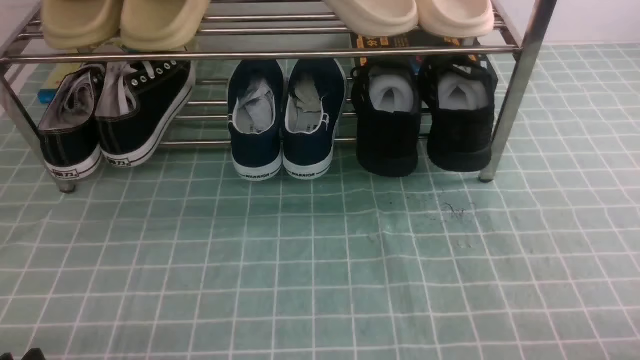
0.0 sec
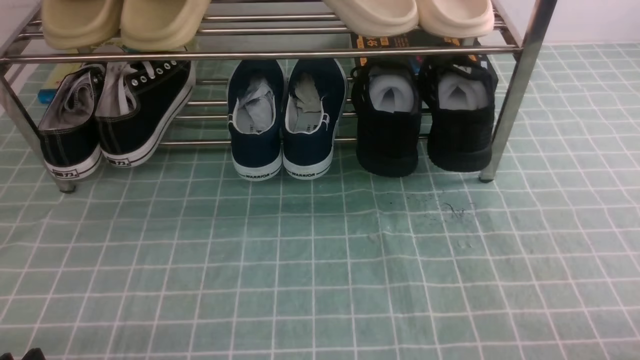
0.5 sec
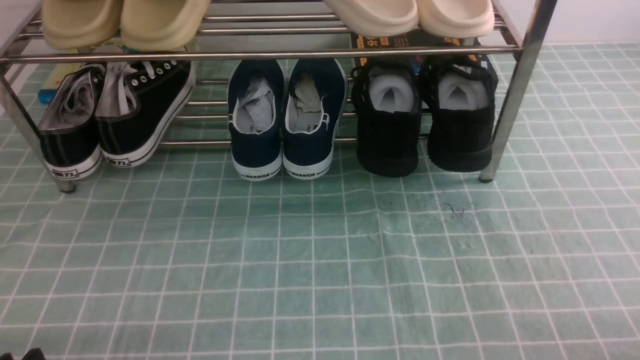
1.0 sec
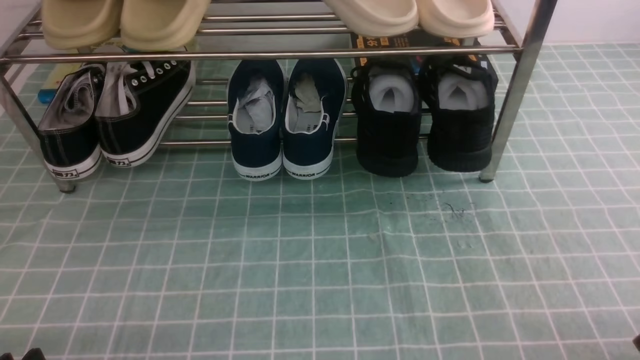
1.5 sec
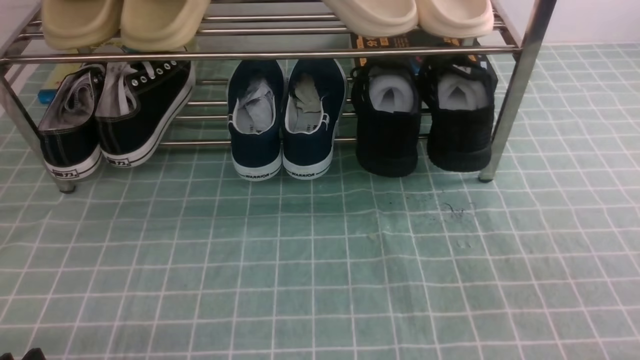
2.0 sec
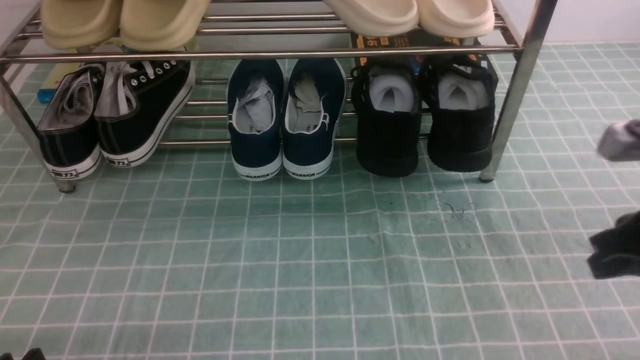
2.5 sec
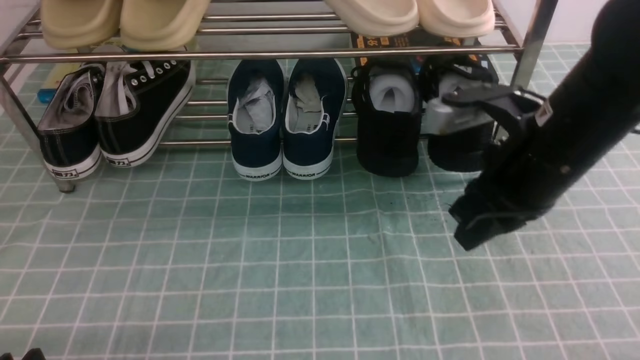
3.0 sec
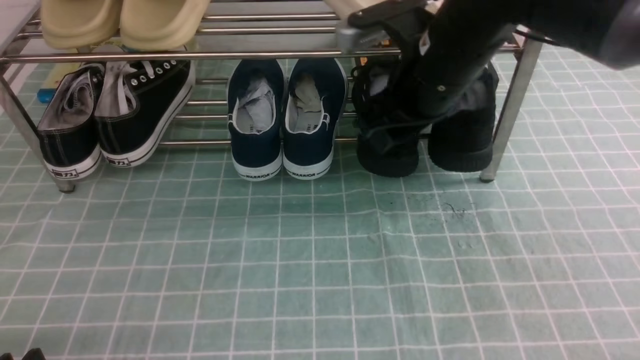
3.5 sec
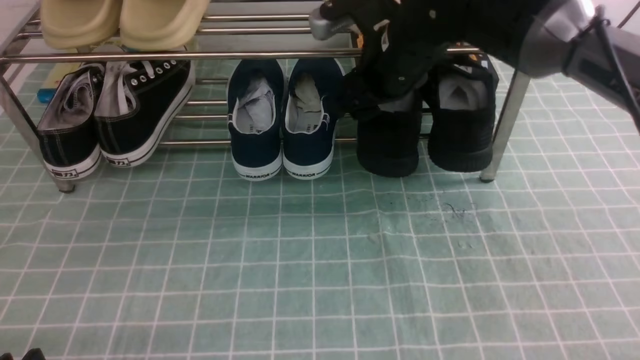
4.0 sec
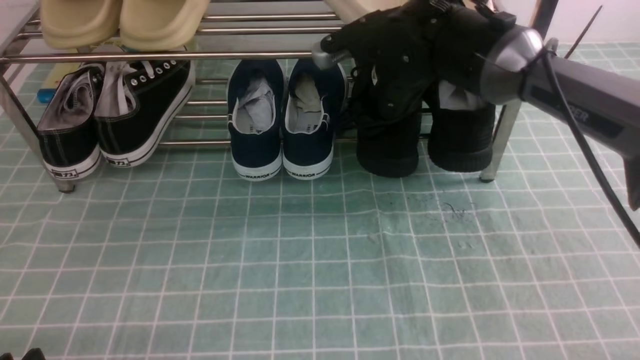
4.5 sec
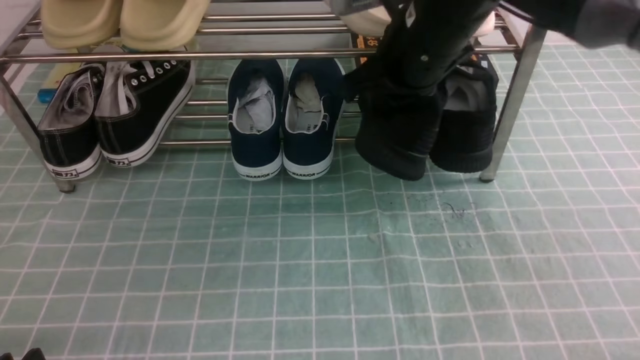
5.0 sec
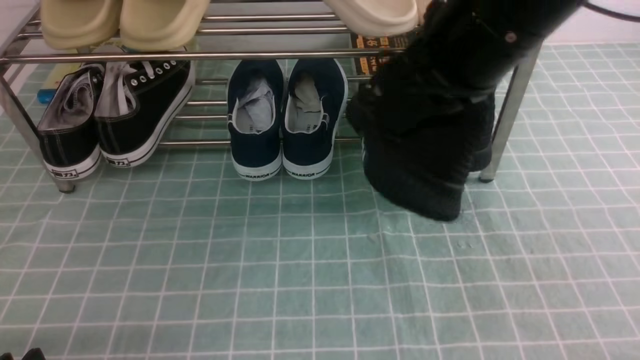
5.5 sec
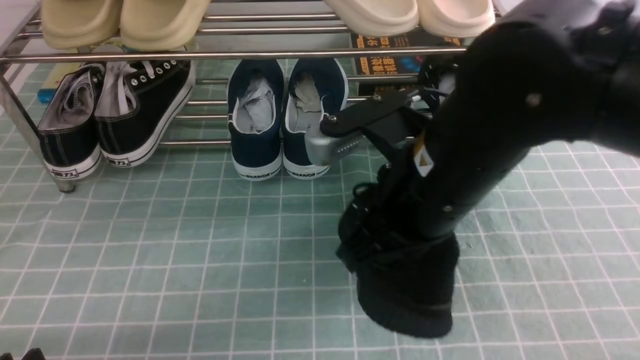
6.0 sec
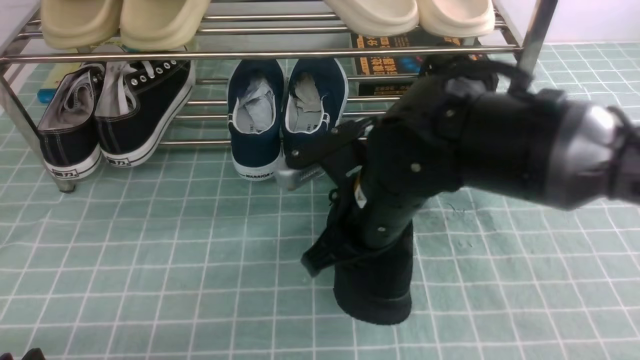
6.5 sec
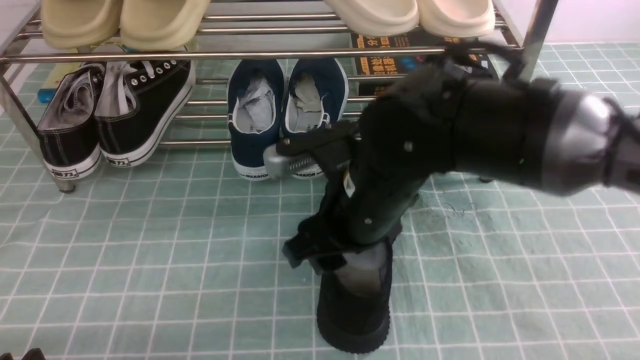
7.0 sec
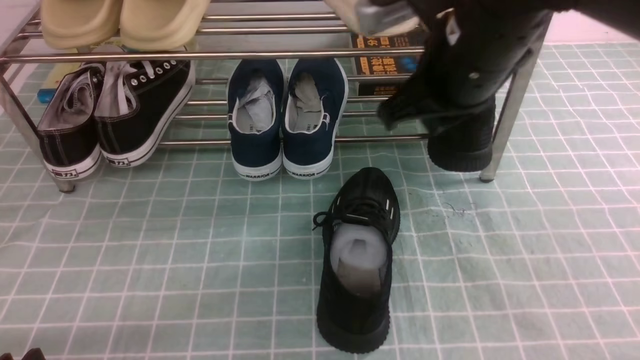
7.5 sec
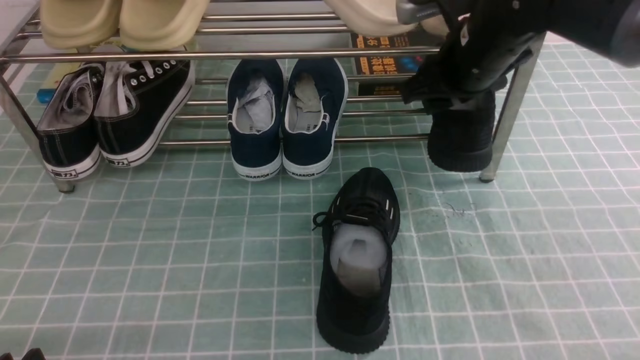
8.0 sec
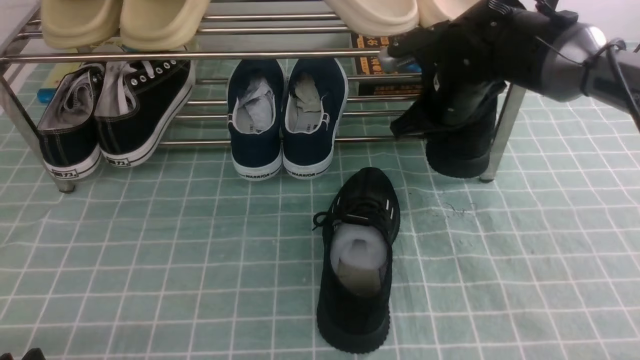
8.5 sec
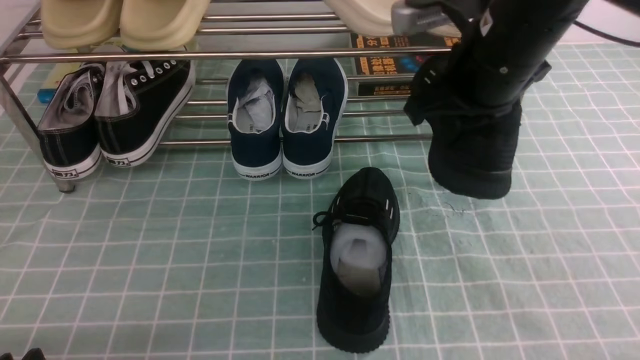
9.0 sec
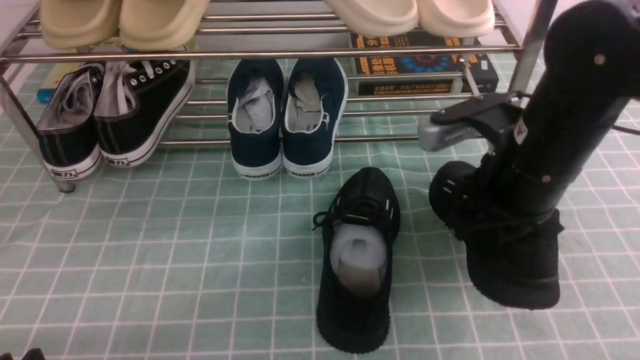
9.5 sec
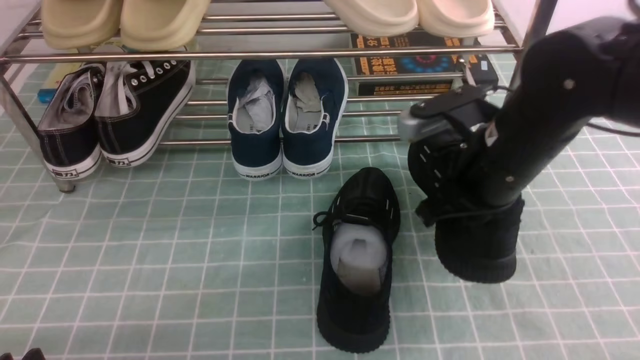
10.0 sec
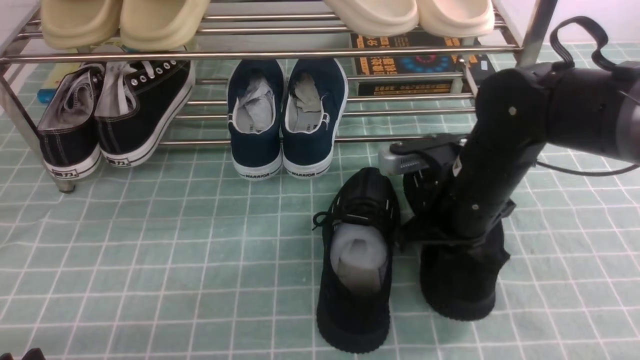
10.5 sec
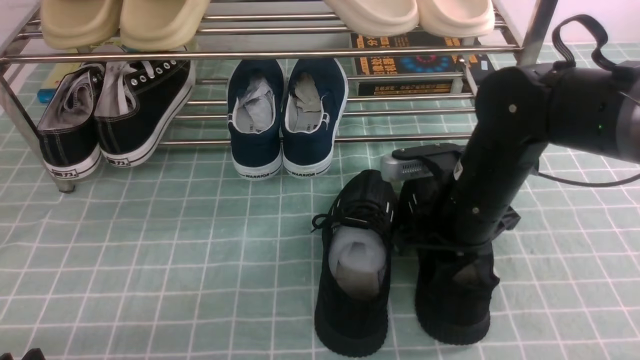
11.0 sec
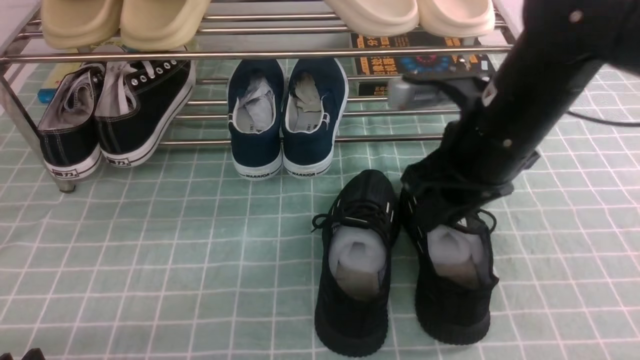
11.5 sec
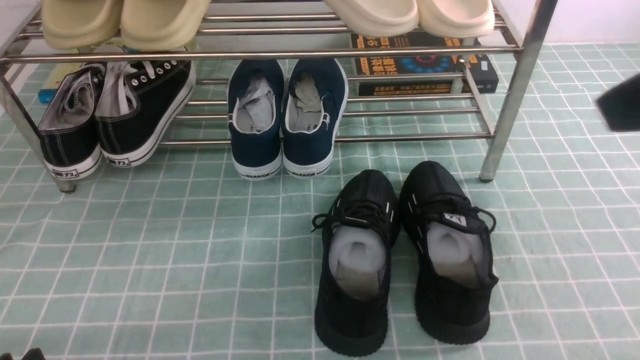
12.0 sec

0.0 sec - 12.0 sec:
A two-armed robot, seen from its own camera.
Step, 0.0 sec - 4.5 sec: use the right arm to clamp a shoe on the right side of the shoe rack.
Step, 5.0 sec - 7.0 sec: use the right arm to take out the clamped shoe from the shoe rack and put it down.
Step, 7.5 sec - 8.0 sec: use the right arm to clamp a shoe on the right side of the shoe rack.
Step, 8.5 sec - 10.5 sec: use the right arm to take out the clamped shoe from the shoe rack and put it down.
2.0 sec - 4.0 sec: The right gripper shifts some 40 cm forward and to the left, and opens.
4.0 sec - 6.0 sec: The right gripper heads backward, covering some 20 cm, and closes its fingers.
6.0 sec - 8.0 sec: The right gripper moves forward and to the right, about 20 cm, and opens its fingers.
8.0 sec - 10.0 sec: The right gripper moves backward, about 10 cm, and closes.
10.0 sec - 12.0 sec: The right gripper goes about 25 cm upward, backward and to the right, and opens, then closes once more.

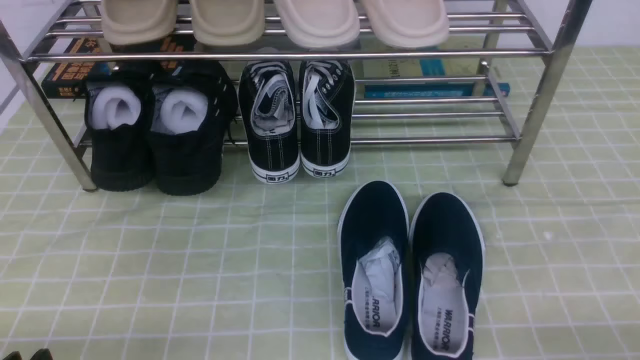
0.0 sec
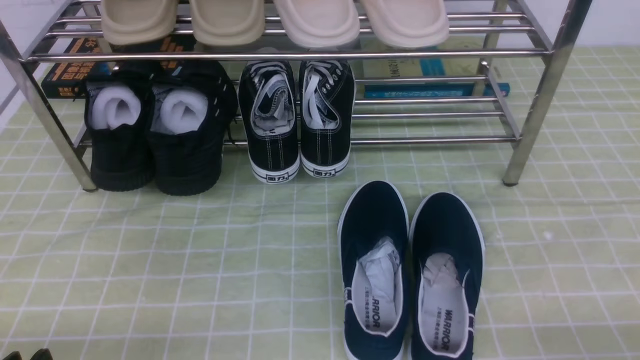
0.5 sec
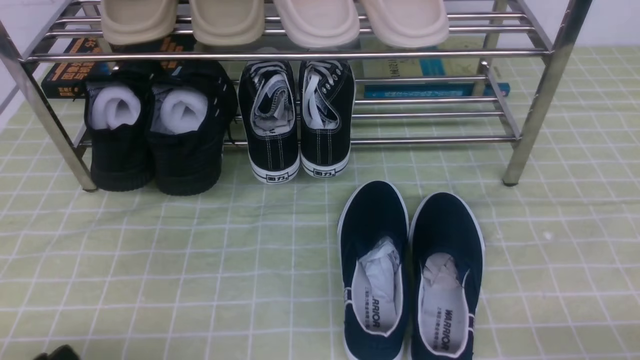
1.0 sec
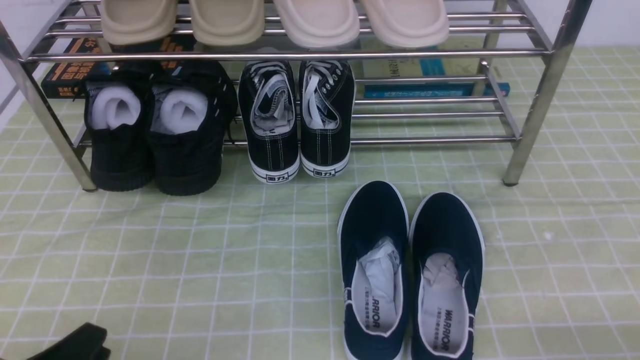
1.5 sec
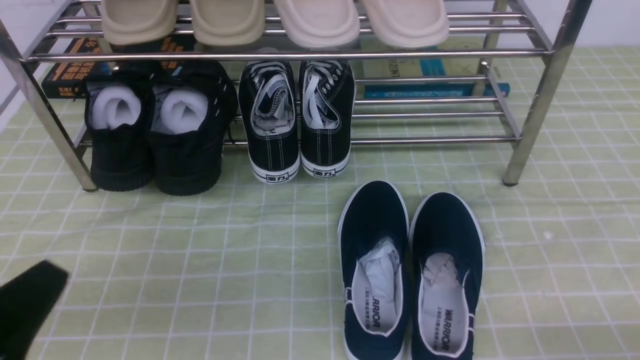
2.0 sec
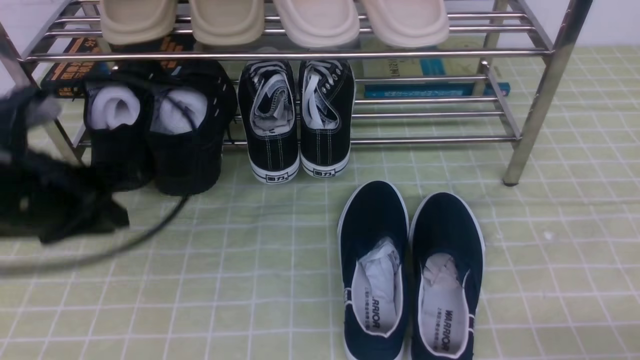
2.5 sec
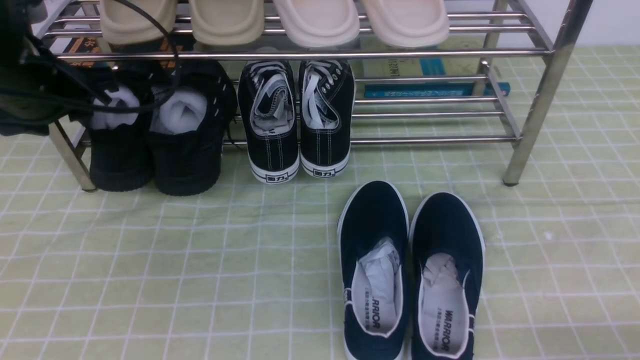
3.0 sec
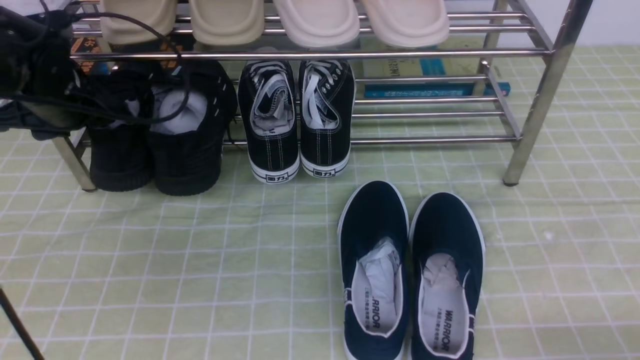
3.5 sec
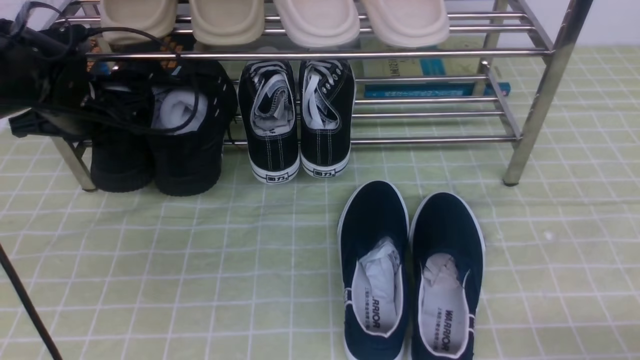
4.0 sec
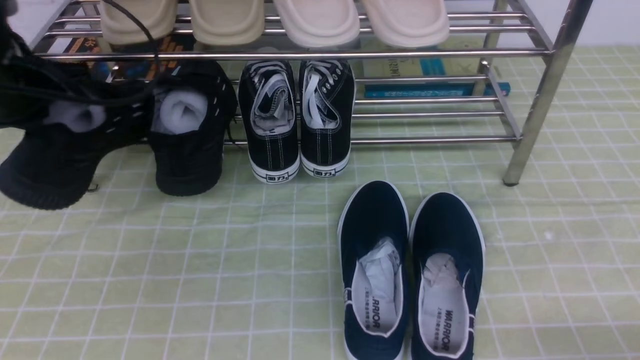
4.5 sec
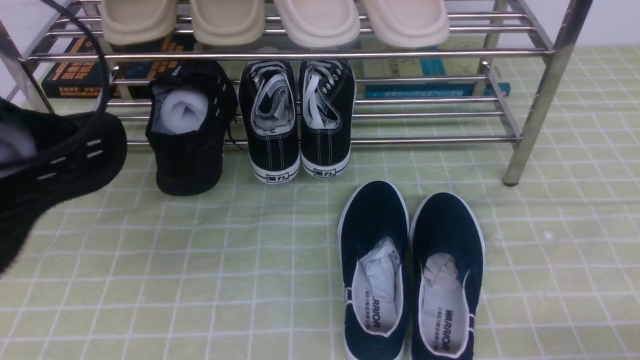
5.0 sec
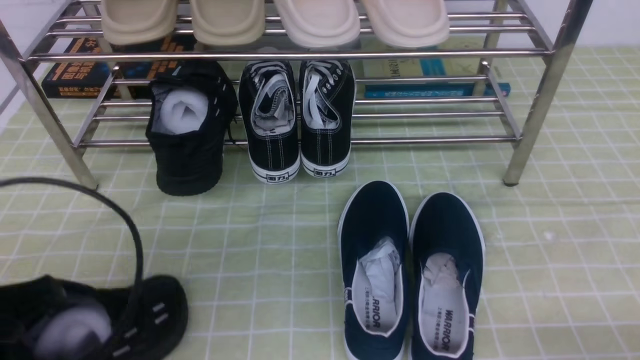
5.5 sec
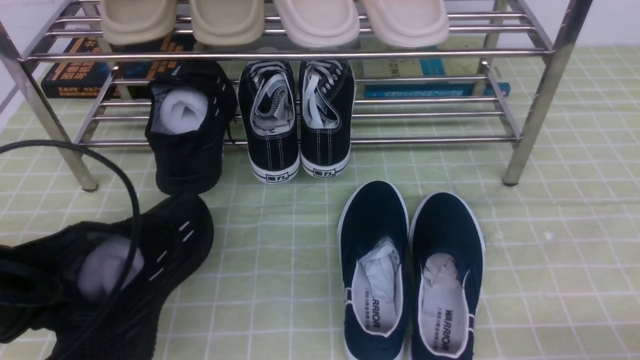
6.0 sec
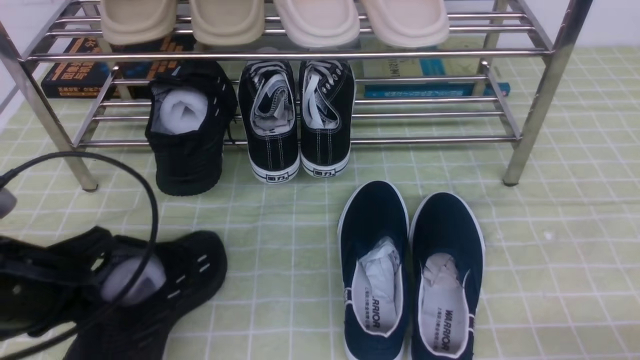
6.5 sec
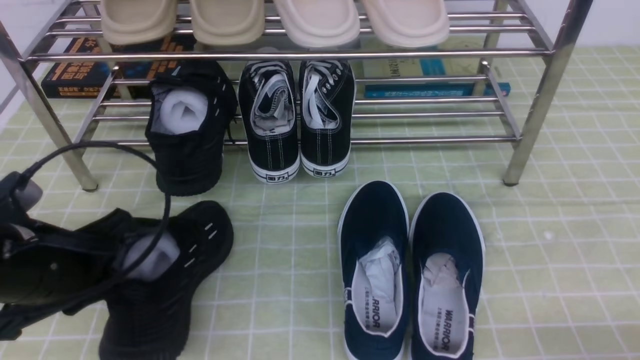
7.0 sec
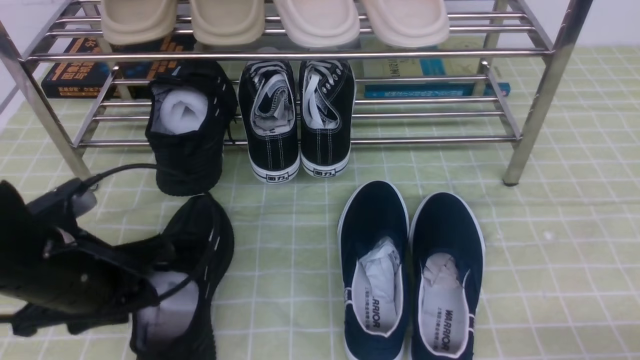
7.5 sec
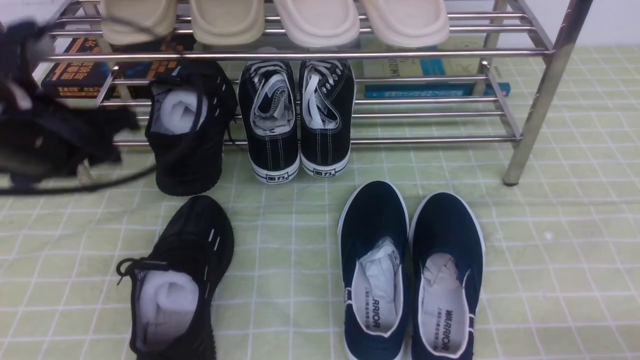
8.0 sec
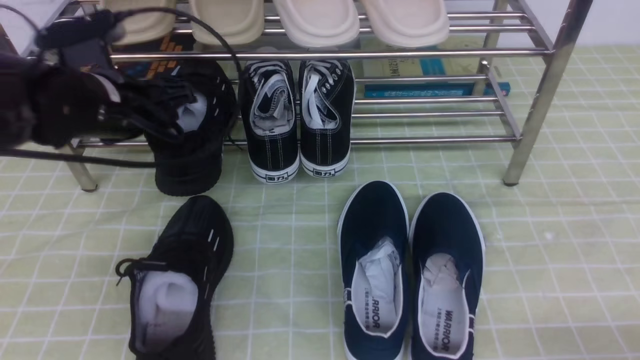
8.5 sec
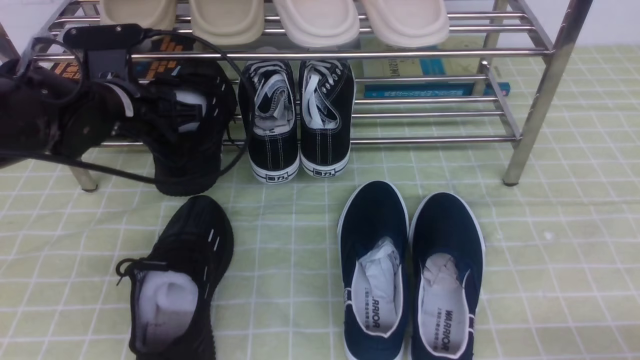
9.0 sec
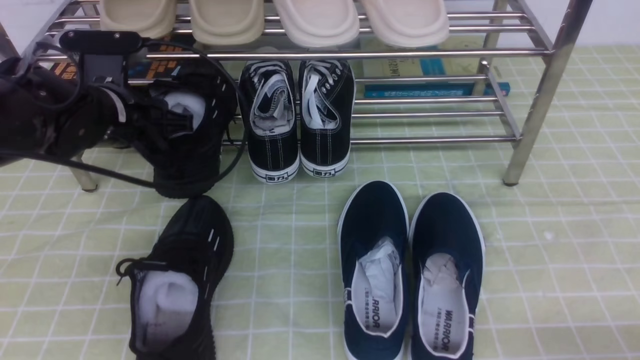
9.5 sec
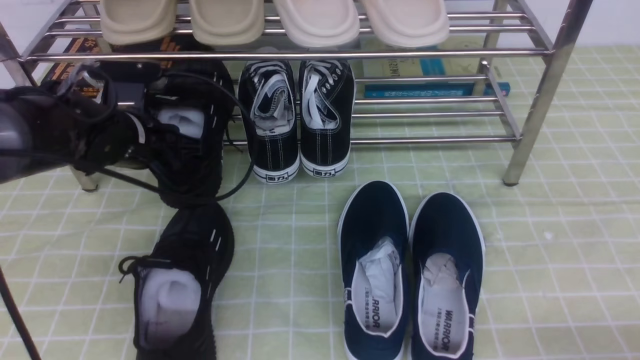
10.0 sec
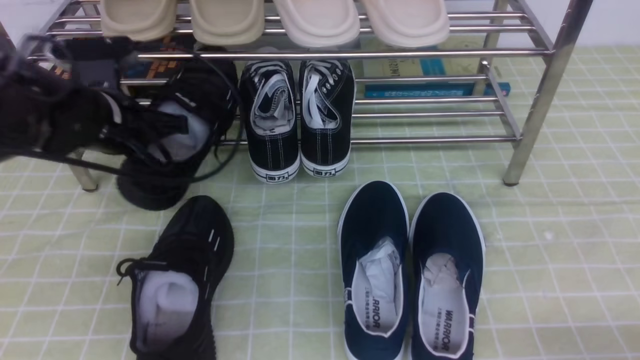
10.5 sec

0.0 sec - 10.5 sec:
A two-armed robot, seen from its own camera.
Step, 0.0 sec - 3.5 sec: use the left arm to clamp a shoe on the left side of the shoe rack.
Step, 4.5 sec - 7.5 sec: Use your left arm to remove the clamped shoe from the shoe rack and put it down.
Step, 8.0 sec - 10.0 sec: use the left arm to clamp a shoe on the left side of the shoe rack.
0.0 sec - 2.0 sec: The left gripper shifts approximately 10 cm upward, and closes up.
2.0 sec - 4.0 sec: The left gripper travels forward by roughly 30 cm, and opens and closes again.
4.0 sec - 6.5 sec: The left gripper goes approximately 20 cm backward.
6.5 sec - 8.5 sec: The left gripper goes roughly 15 cm forward, and opens up.
8.5 sec - 10.5 sec: The left gripper closes its fingers.
